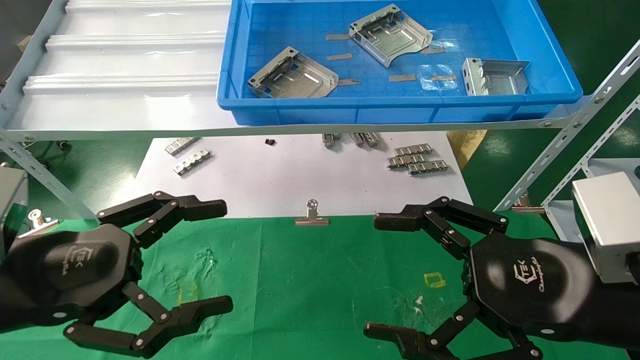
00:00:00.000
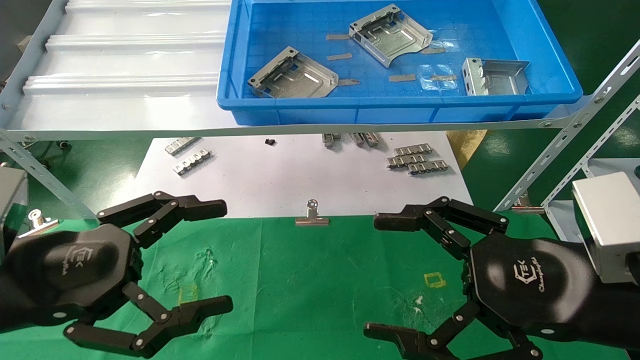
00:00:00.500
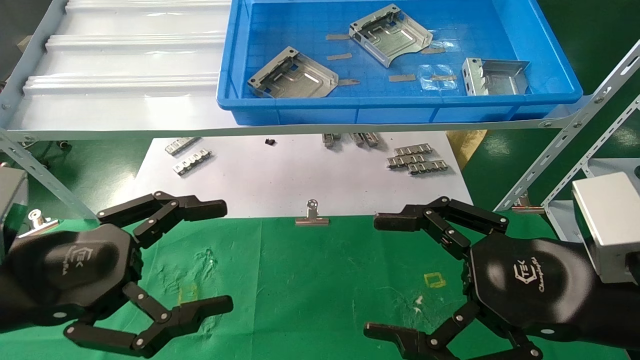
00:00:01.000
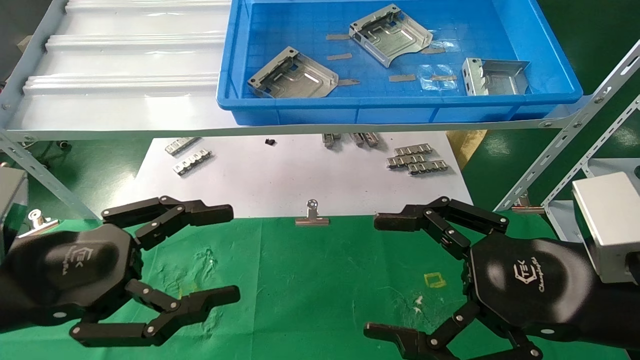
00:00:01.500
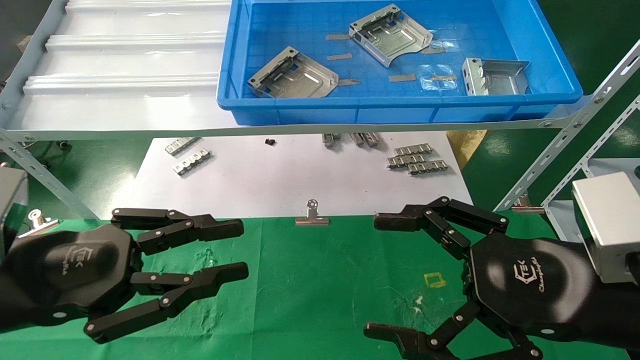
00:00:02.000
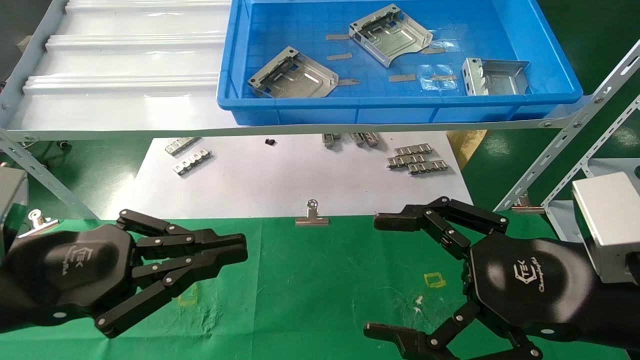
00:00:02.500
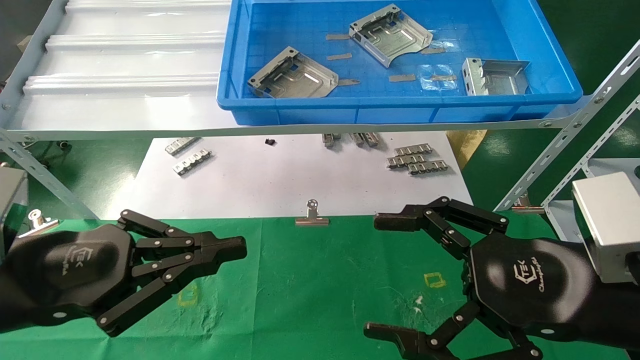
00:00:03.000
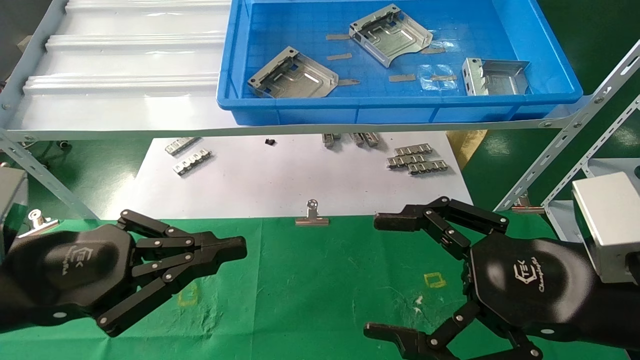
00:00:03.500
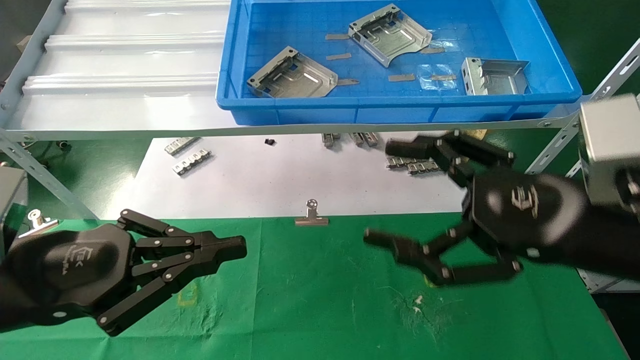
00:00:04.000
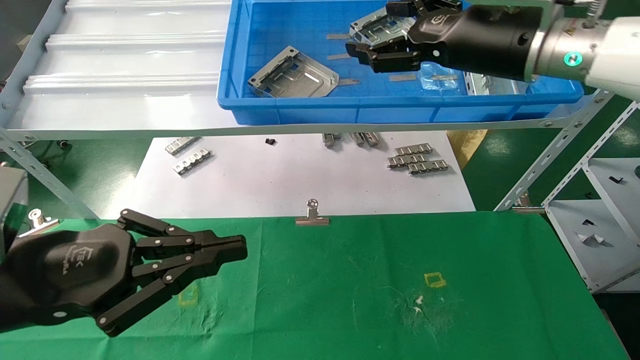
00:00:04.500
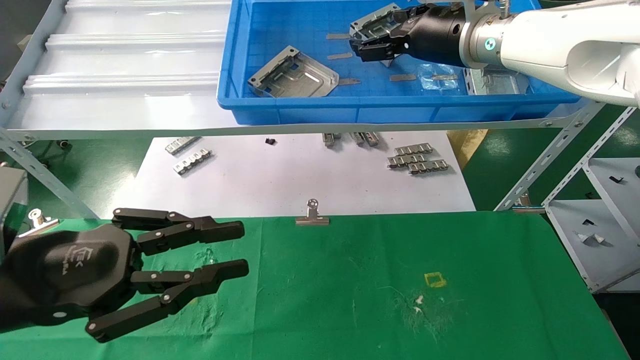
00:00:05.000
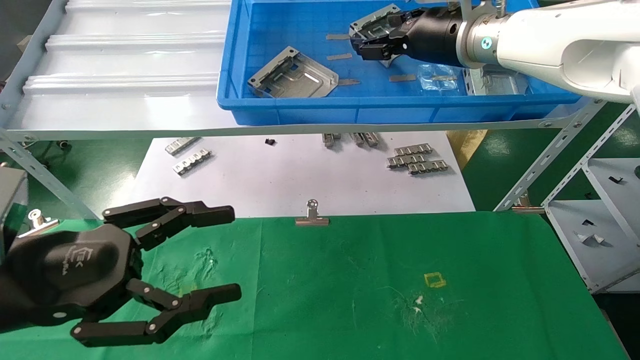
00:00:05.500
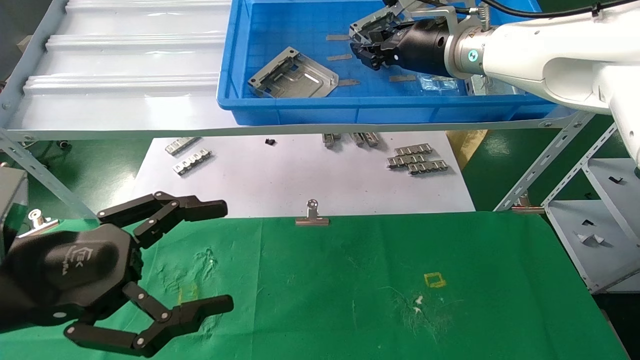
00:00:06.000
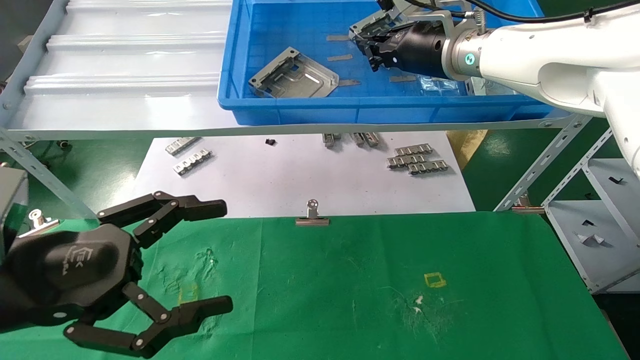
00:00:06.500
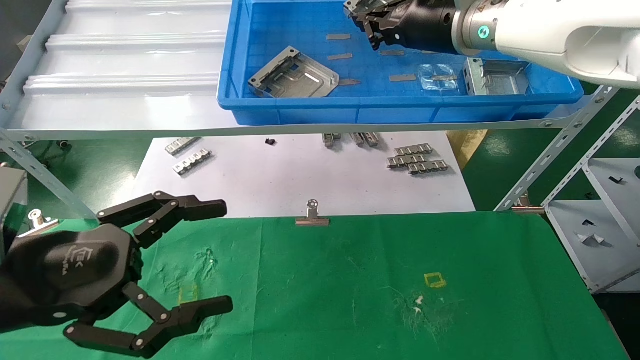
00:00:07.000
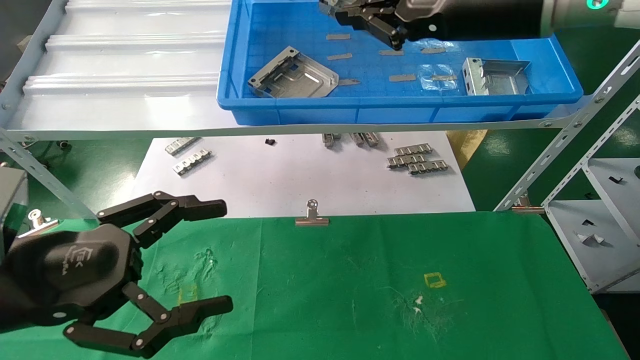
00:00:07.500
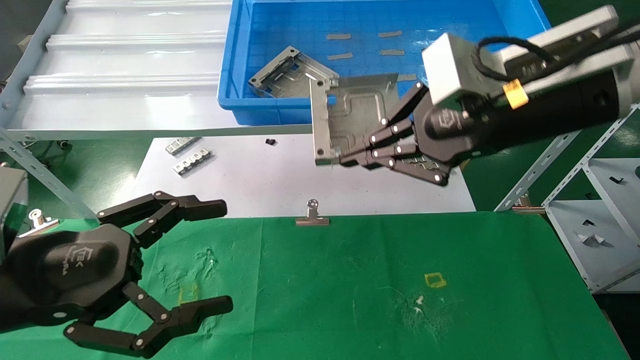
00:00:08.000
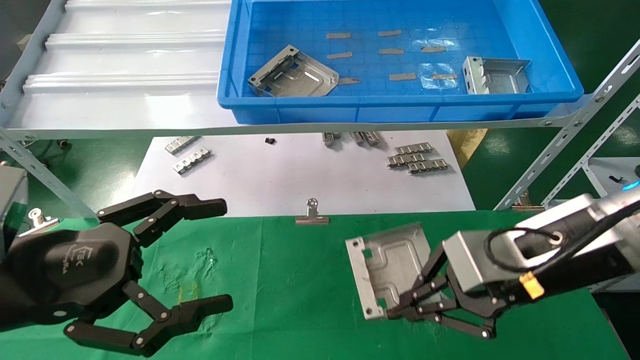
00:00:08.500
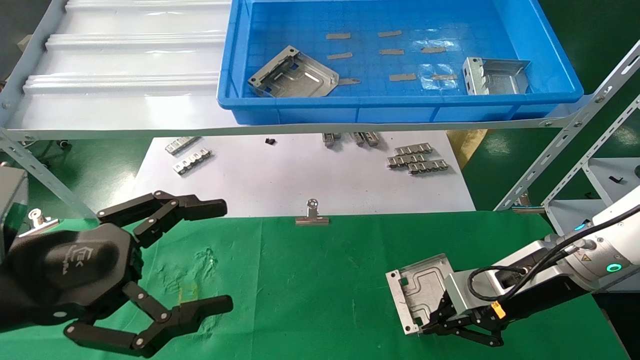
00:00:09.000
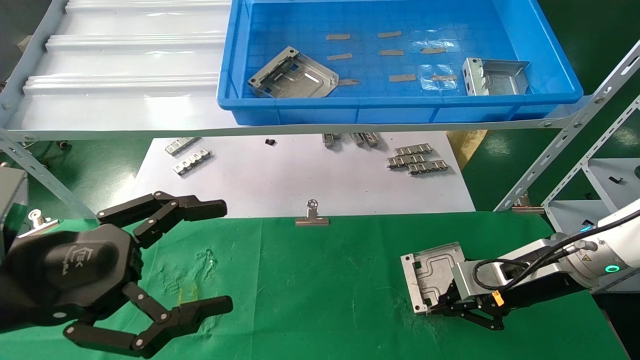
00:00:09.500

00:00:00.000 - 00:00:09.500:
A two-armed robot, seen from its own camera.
Task of the whole recording: use the mechanical arm to pick up the parts and place them on the table.
Step, 00:00:04.000 - 00:00:06.500: Pick up the hard drive bracket from the feeding area.
00:00:00.000 - 00:00:02.000: The left gripper closes its fingers.
00:00:02.000 - 00:00:04.000: The left gripper closes. The right gripper moves upward, approximately 5 cm.
00:00:04.000 - 00:00:05.500: The right gripper goes about 25 cm forward and upward, while the left gripper opens.
00:00:05.500 - 00:00:07.500: The right gripper heads backward, covering roughly 10 cm, and closes its fingers. The left gripper opens its fingers.
00:00:07.500 - 00:00:09.500: The right gripper travels downward and to the right by roughly 30 cm.

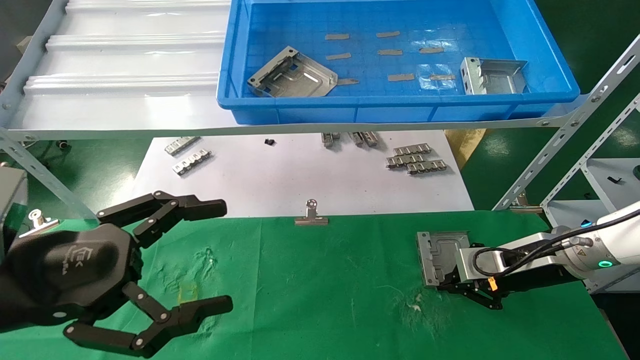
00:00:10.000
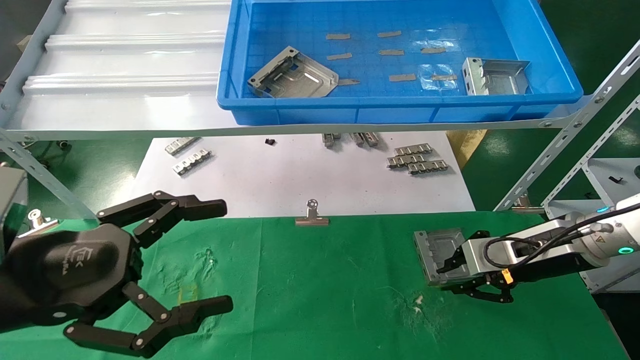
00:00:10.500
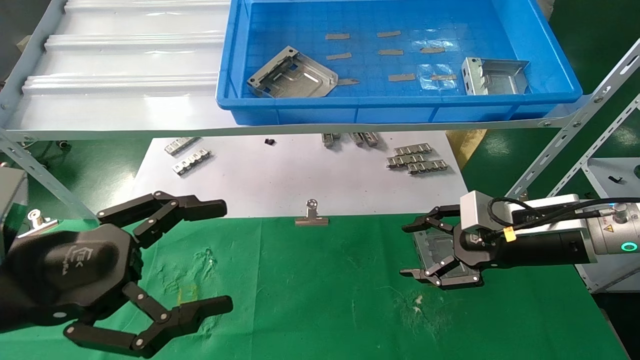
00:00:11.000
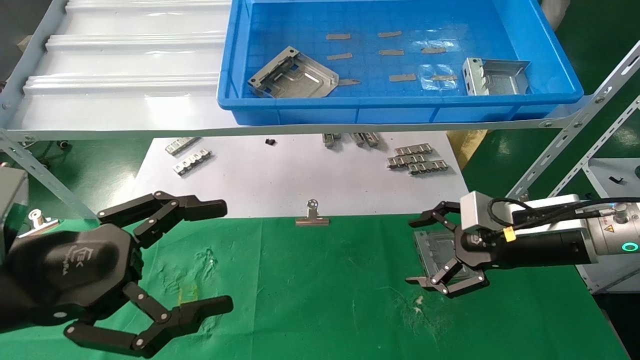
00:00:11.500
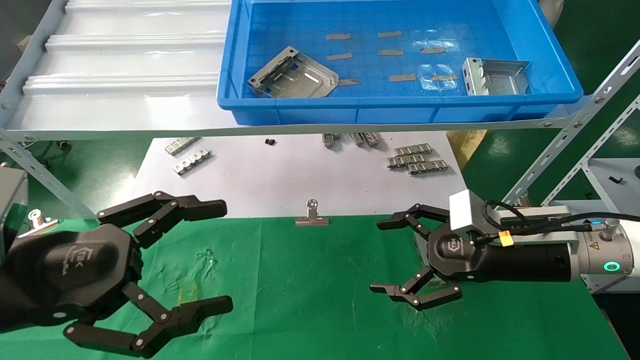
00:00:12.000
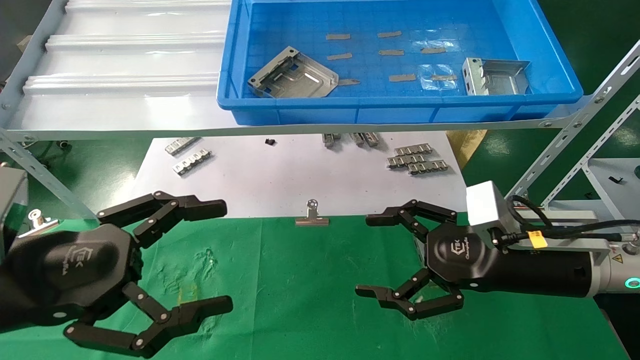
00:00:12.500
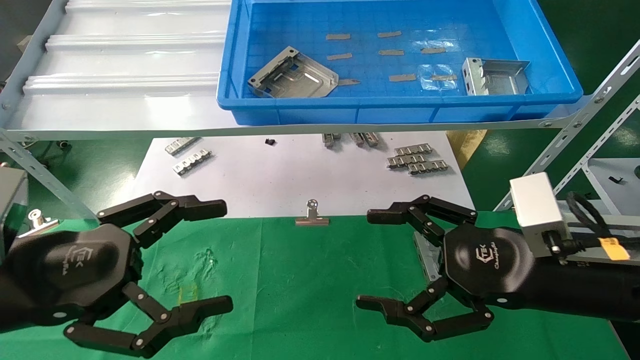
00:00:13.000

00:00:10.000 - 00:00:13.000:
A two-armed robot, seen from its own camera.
Task of the whole recording: use the mechanical arm to pick up the parts and place them on the table.
00:00:10.000 - 00:00:11.500: The right gripper changes place by roughly 5 cm, and opens up.
00:00:11.500 - 00:00:13.000: The right gripper is displaced backward by about 10 cm.
